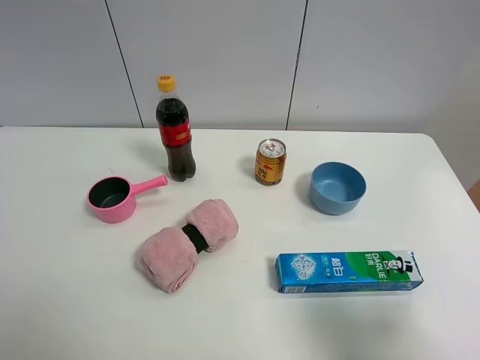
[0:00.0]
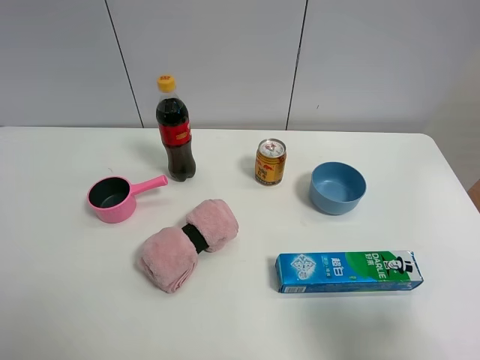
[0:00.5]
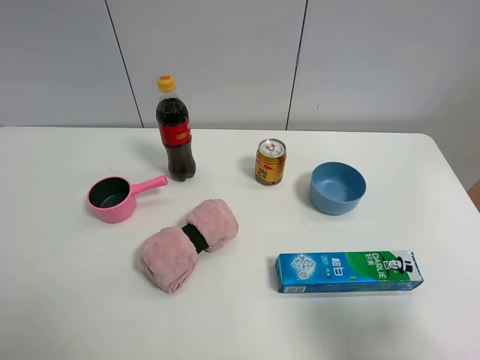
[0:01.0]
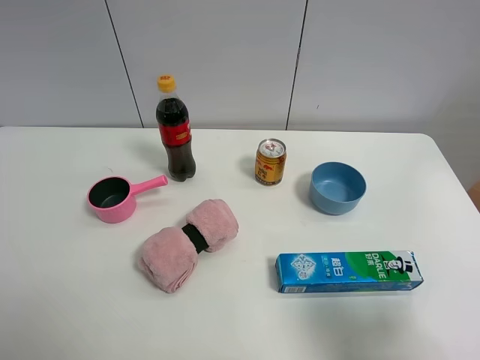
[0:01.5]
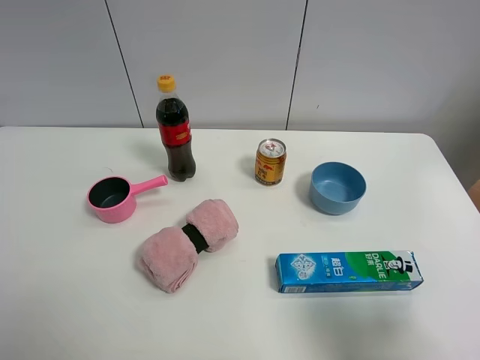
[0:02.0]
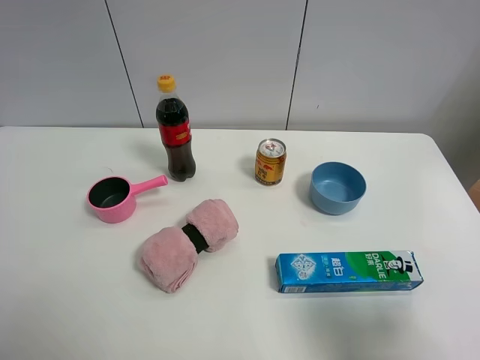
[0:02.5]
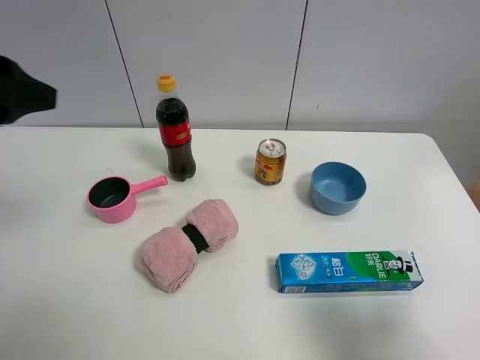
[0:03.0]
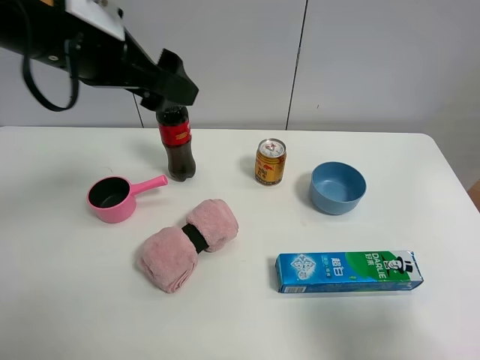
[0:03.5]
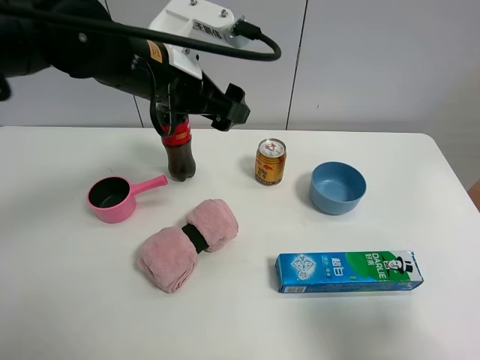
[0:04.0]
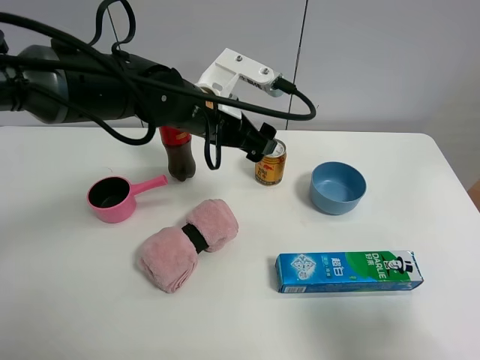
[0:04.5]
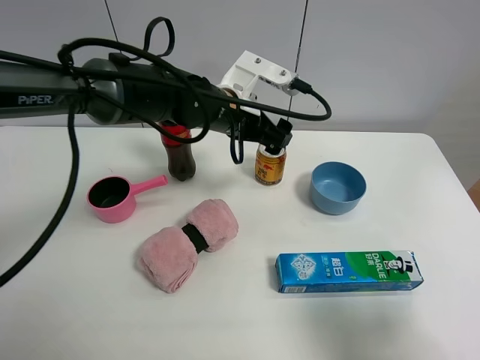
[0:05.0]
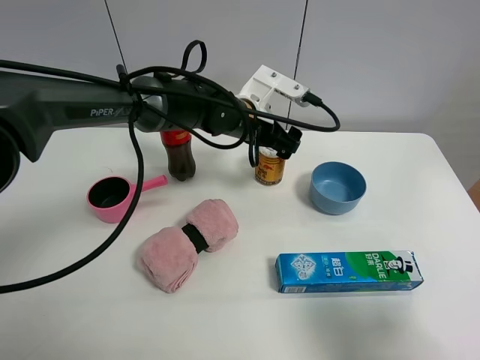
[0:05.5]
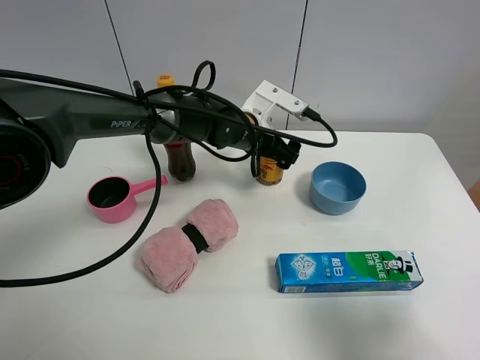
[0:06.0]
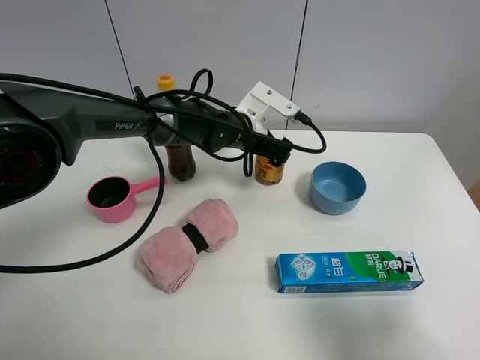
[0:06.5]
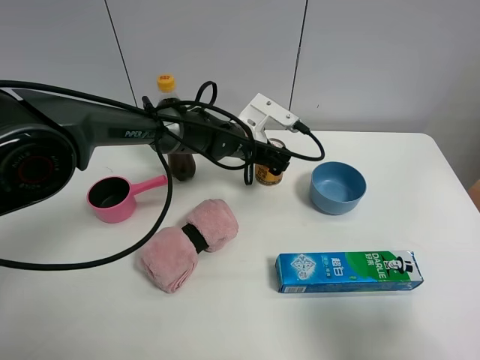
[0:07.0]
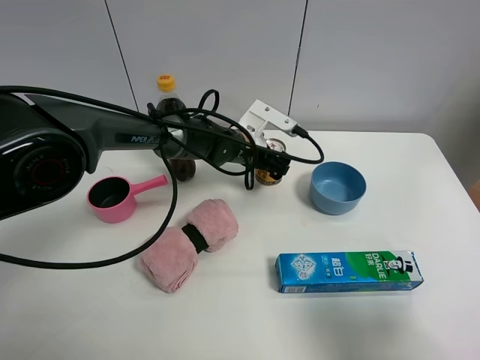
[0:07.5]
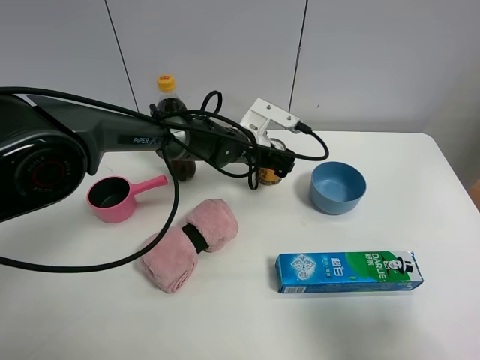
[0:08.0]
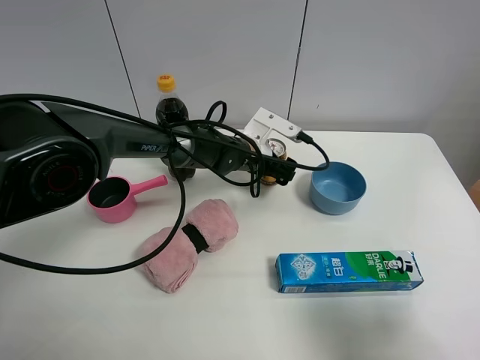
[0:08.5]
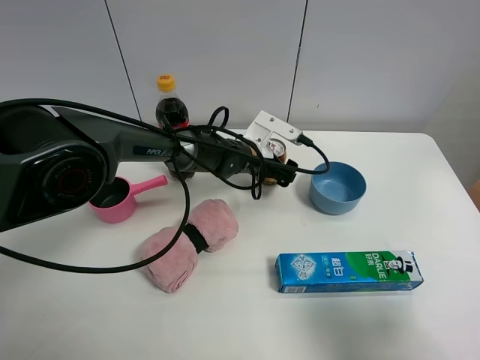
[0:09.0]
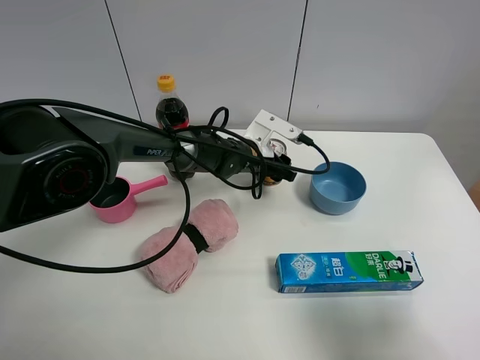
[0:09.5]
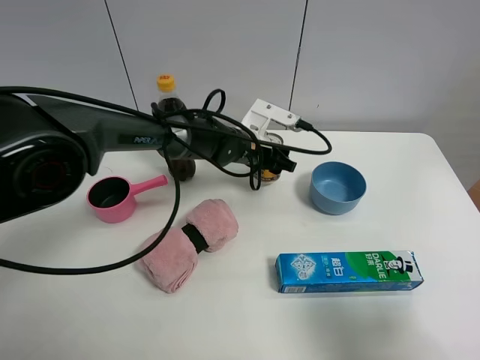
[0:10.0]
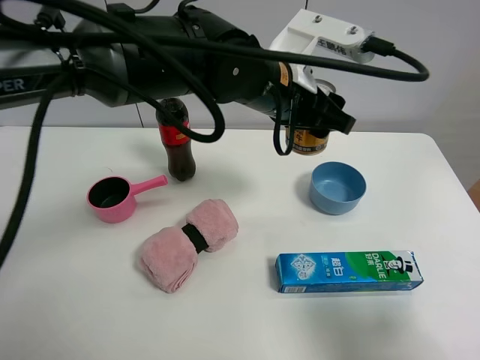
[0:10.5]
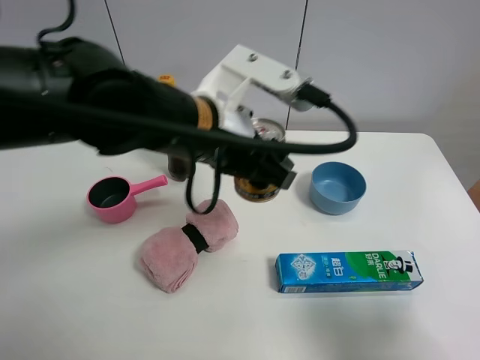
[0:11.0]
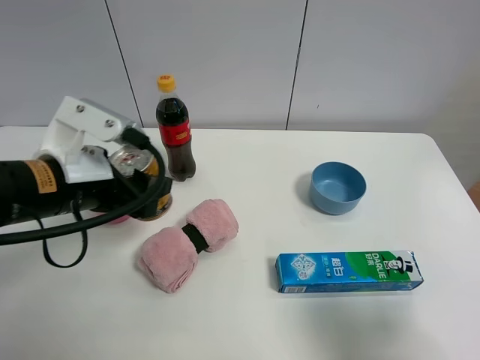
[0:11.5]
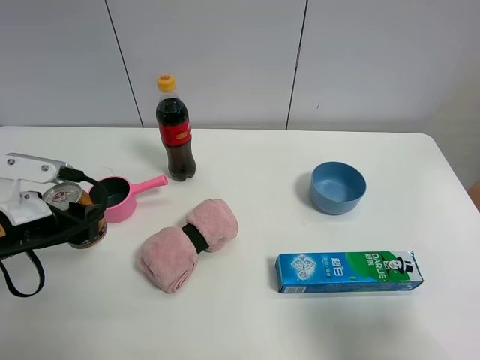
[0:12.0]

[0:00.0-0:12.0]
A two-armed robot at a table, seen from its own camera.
Task of the whole recording: the gripper move the object.
Step, 0:00.0 to 0:09.5: Grasp the red bull with the left gripper.
0:00.0 to 0:02.0: The grippers stay close to where they were, moving slightly.
0:02.0 to 0:04.0: The left gripper is displaced forward and to the right by some 35 cm.
0:04.0 to 0:06.0: The left gripper moves downward, to the right and forward, roughly 20 cm.
0:06.0 to 0:08.0: There are only small adjustments of the grippers.
0:08.0 to 0:10.0: The left gripper closes up.
0:10.0 to 0:12.0: The left gripper travels to the left and backward by some 35 cm.

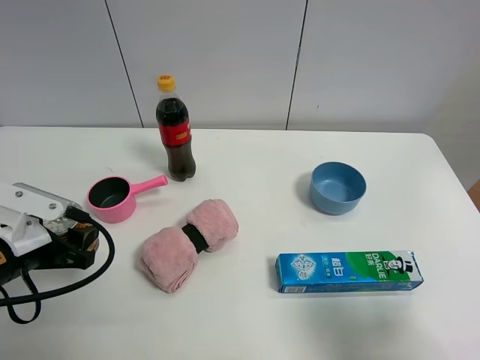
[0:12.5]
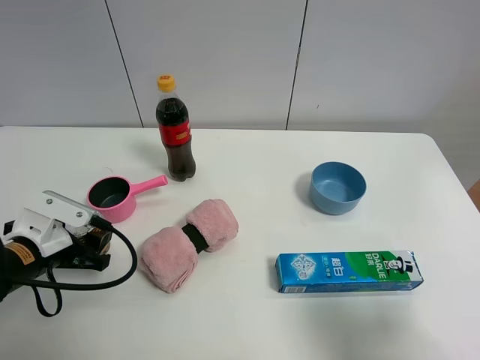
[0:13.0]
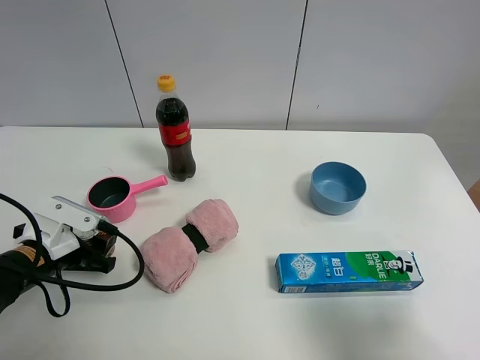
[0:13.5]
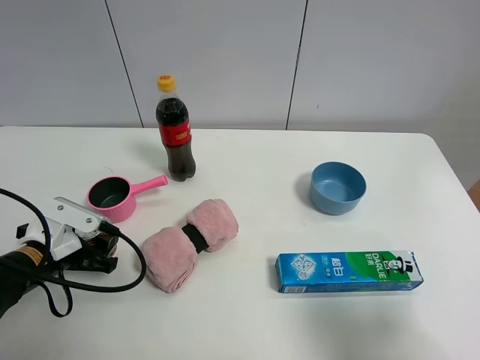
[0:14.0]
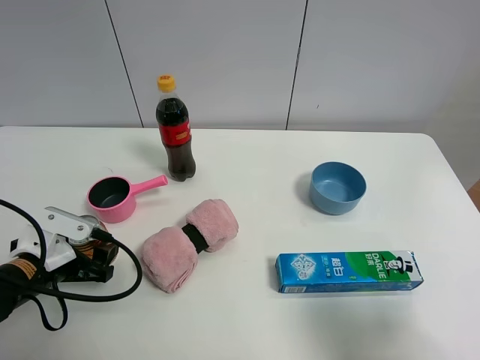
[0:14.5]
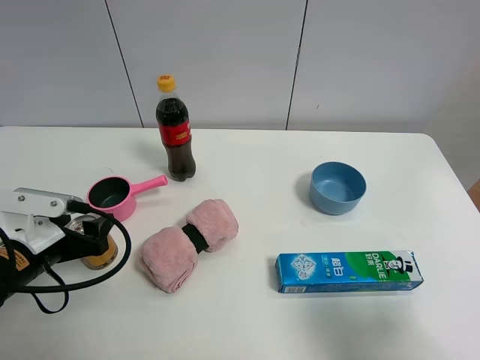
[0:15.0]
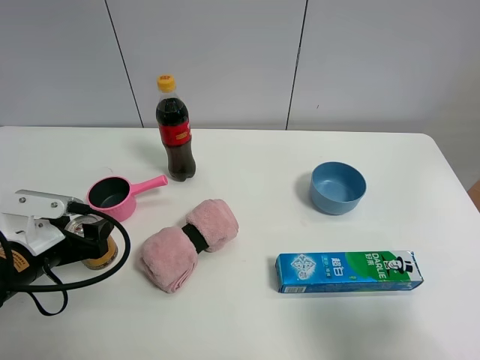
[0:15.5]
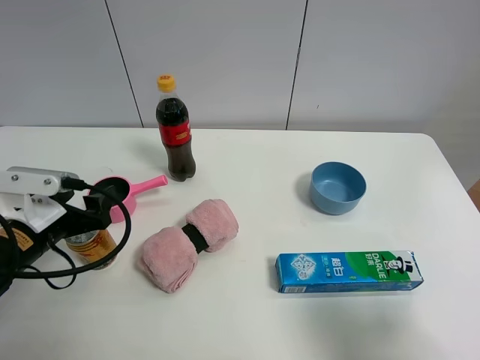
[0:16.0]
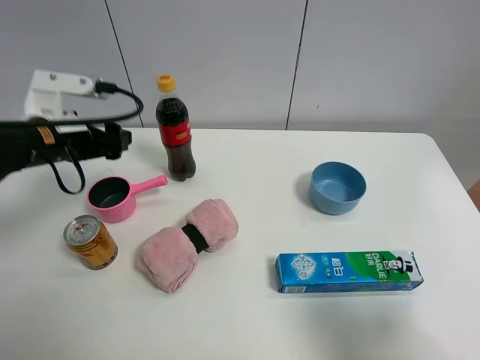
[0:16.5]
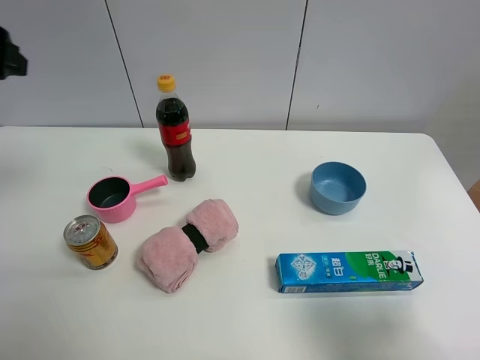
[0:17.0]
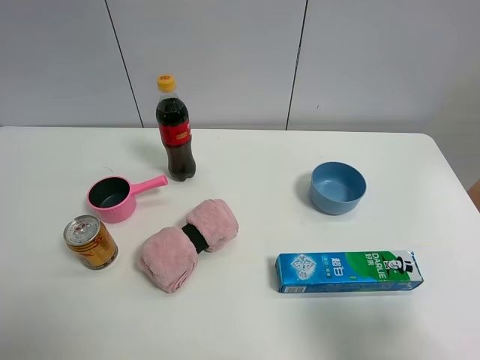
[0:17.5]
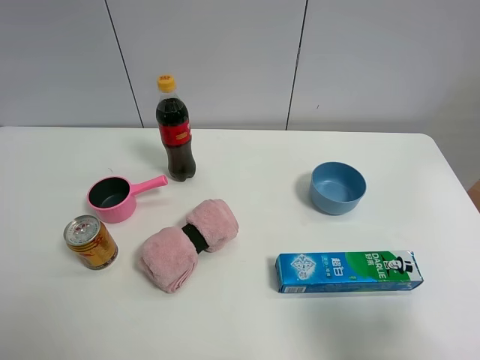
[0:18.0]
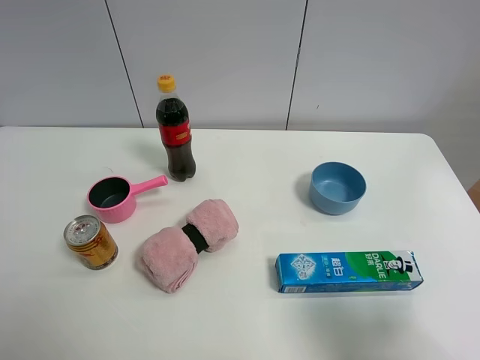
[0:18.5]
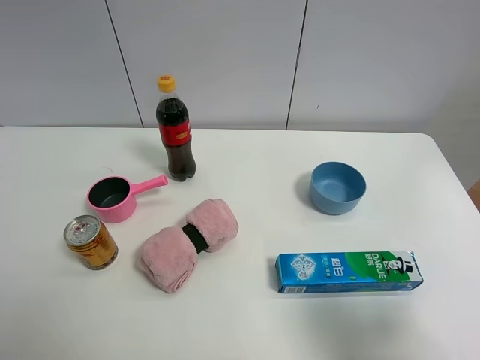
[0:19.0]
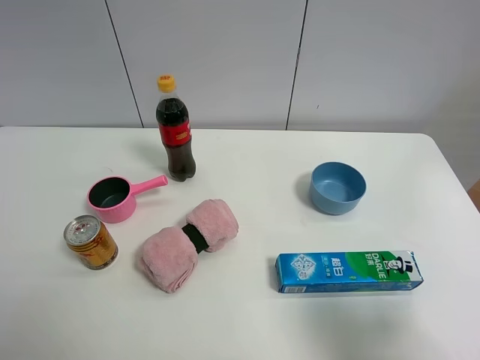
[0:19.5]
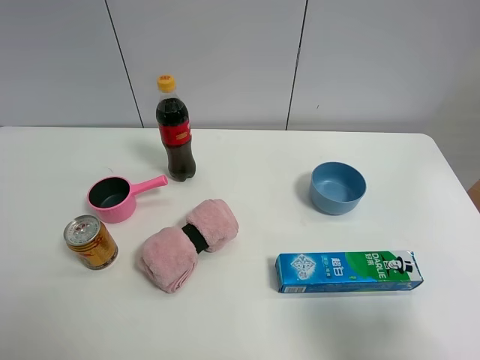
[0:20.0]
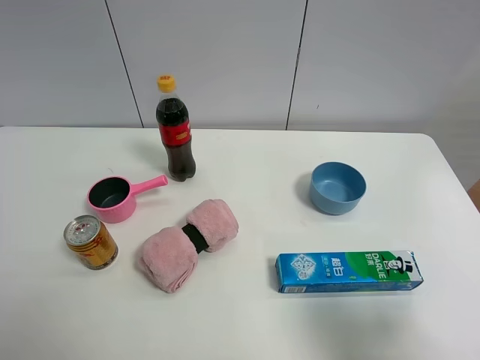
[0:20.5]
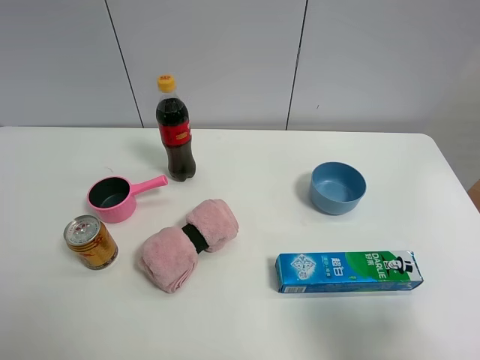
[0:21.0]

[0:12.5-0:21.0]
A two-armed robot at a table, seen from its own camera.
Task of the whole recording: the gripper move the object.
Step, 0:12.5 to 0:14.5: Place the red bull on the table with the left gripper.
0:12.5 to 0:14.5: The left gripper heads downward, covering roughly 5 cm, and opens its fingers.
0:14.5 to 0:16.5: The left gripper heads upward and forward, covering some 20 cm.
0:16.5 to 0:19.0: The left gripper shifts approximately 30 cm backward, and opens its fingers.
0:19.0 to 0:21.0: The two grippers keep their place.

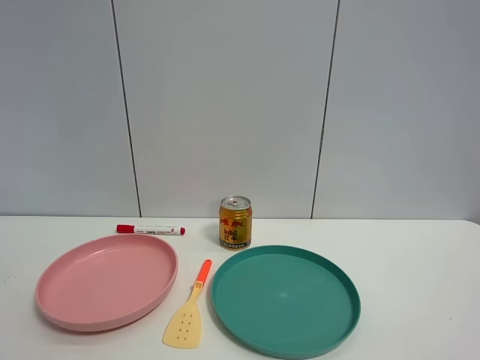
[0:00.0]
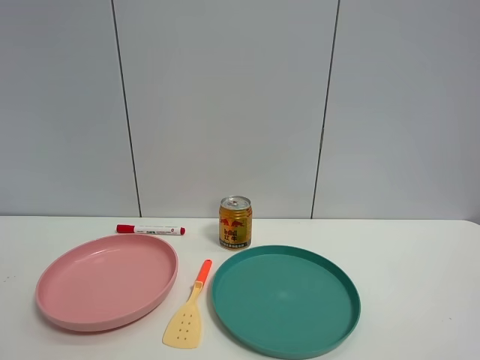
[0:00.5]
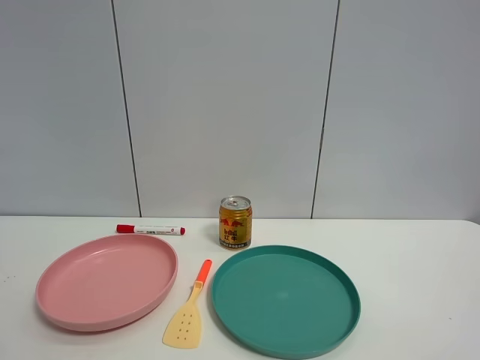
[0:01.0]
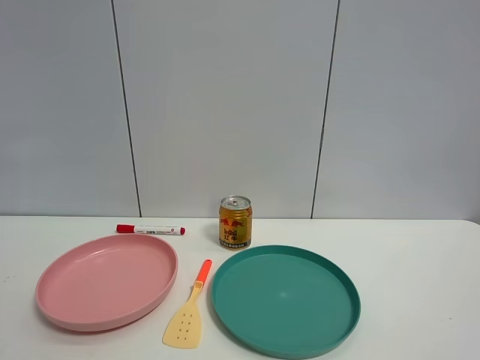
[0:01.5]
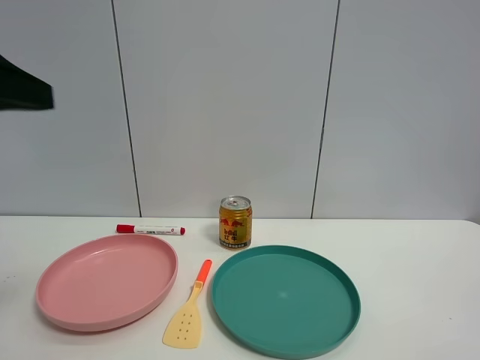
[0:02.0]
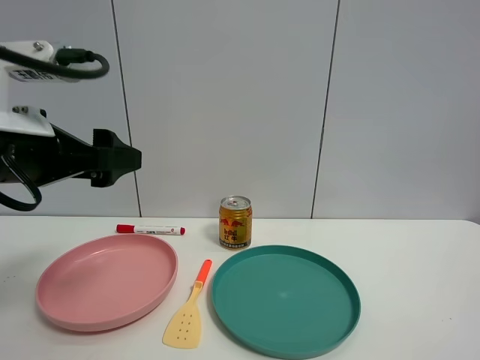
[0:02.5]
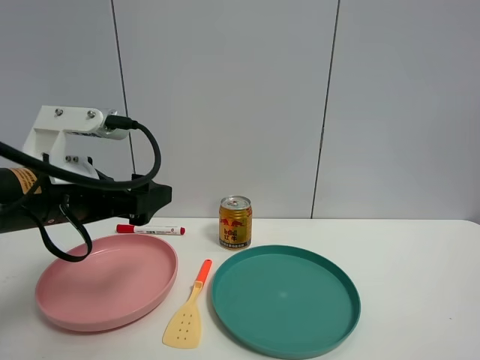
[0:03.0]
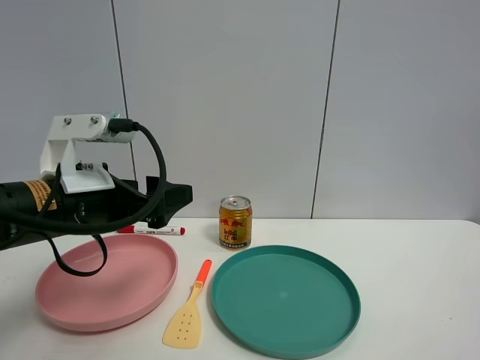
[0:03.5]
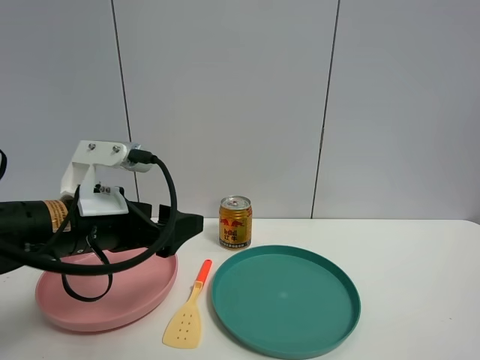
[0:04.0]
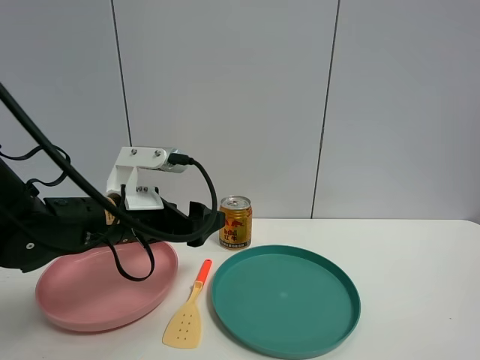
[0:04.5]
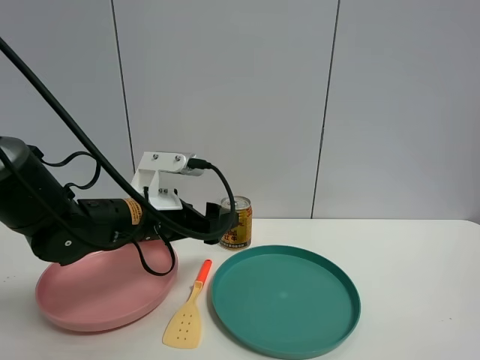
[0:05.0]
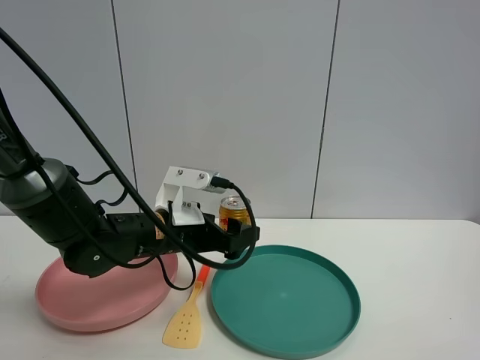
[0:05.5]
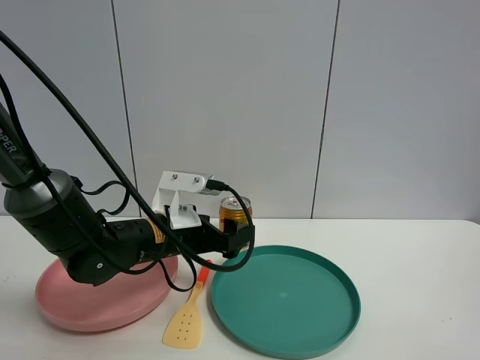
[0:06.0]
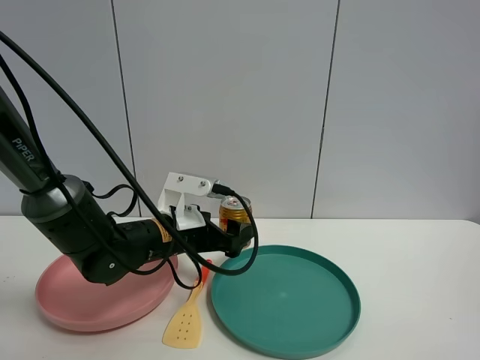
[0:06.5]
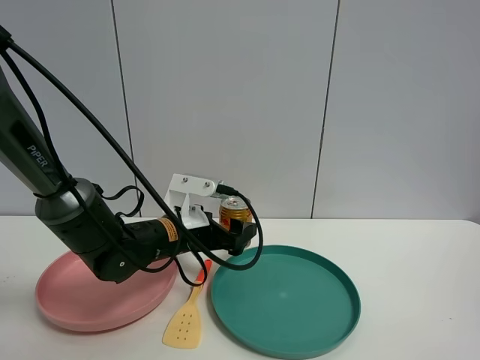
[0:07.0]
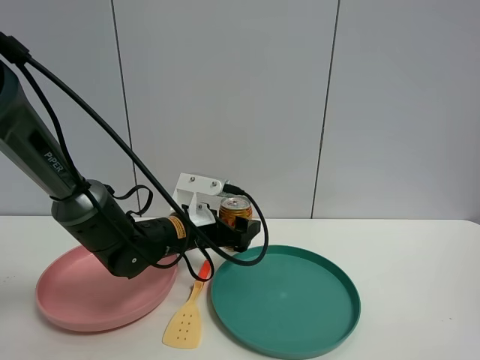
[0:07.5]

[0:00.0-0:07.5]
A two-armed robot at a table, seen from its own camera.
Task of the whole recording: the gripper move the object.
0:00.0 to 0:02.0: The left gripper travels forward by approximately 20 cm.
0:02.0 to 0:04.0: The left gripper goes some 20 cm downward, forward and to the right.
0:04.0 to 0:05.5: The left gripper goes about 10 cm forward, to the right and downward.
0:05.5 to 0:07.5: The left gripper moves roughly 5 cm.
